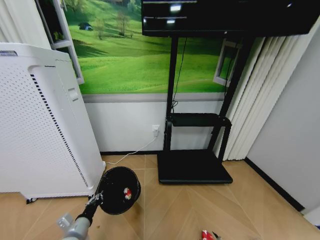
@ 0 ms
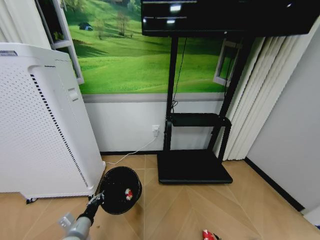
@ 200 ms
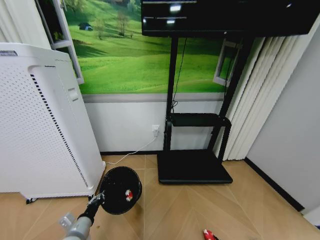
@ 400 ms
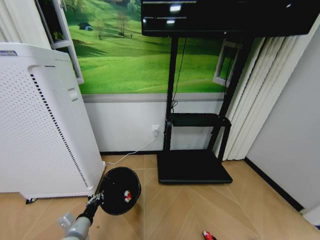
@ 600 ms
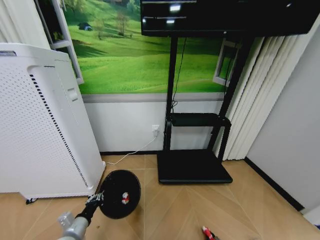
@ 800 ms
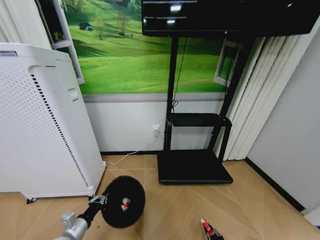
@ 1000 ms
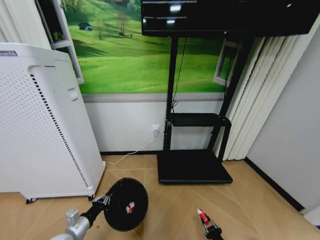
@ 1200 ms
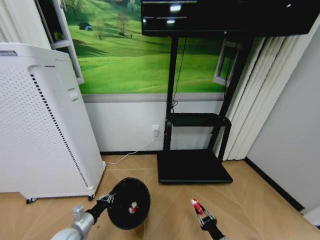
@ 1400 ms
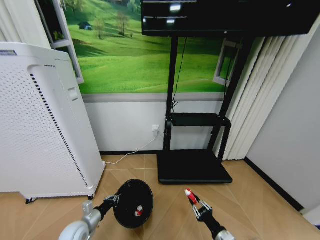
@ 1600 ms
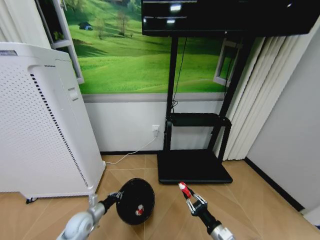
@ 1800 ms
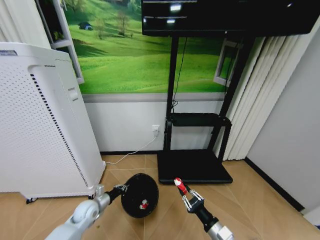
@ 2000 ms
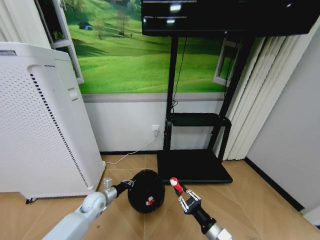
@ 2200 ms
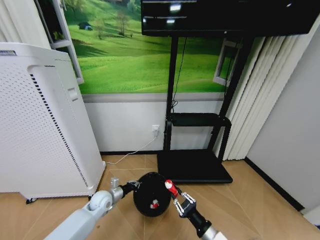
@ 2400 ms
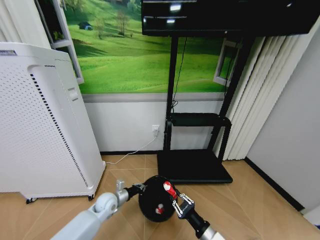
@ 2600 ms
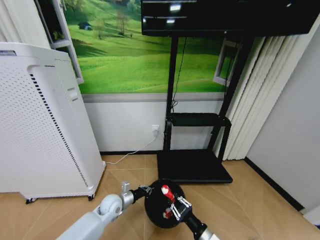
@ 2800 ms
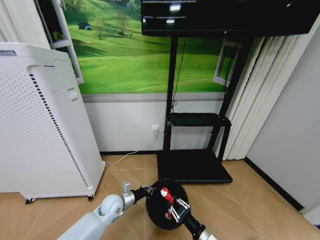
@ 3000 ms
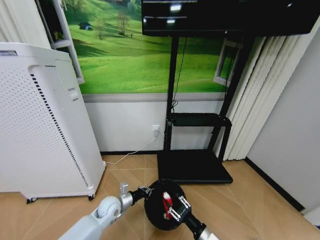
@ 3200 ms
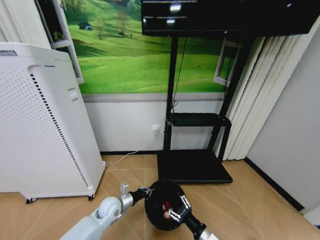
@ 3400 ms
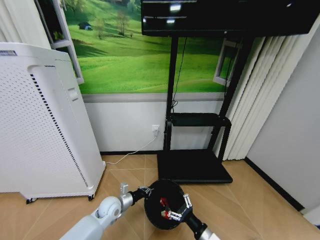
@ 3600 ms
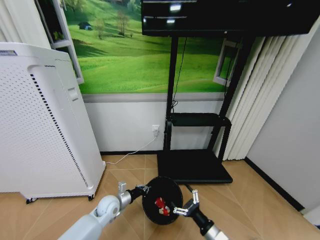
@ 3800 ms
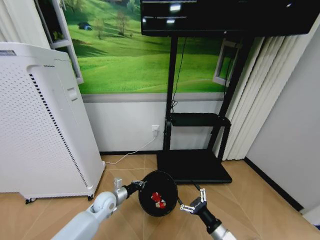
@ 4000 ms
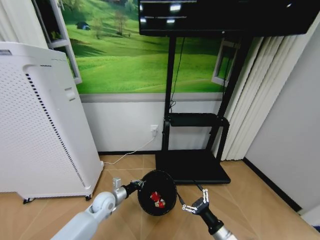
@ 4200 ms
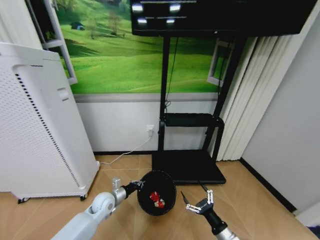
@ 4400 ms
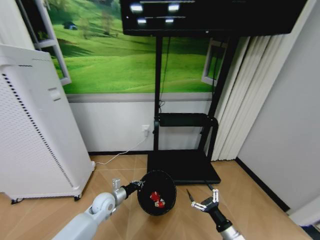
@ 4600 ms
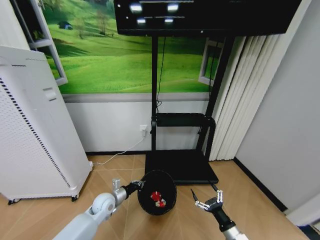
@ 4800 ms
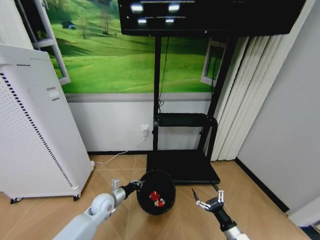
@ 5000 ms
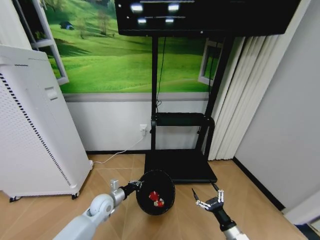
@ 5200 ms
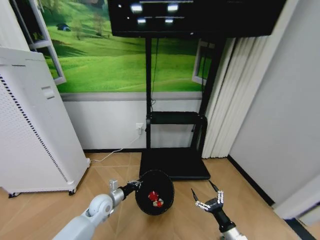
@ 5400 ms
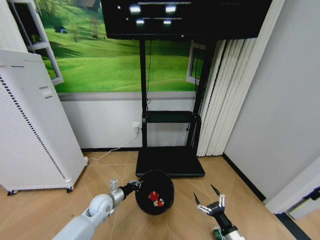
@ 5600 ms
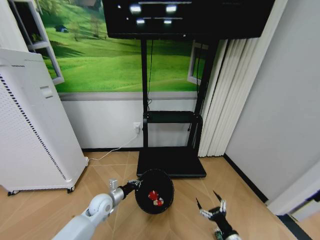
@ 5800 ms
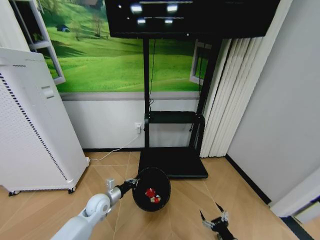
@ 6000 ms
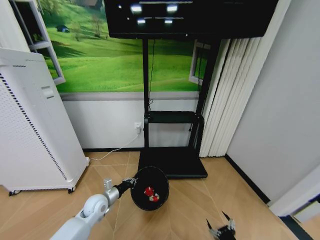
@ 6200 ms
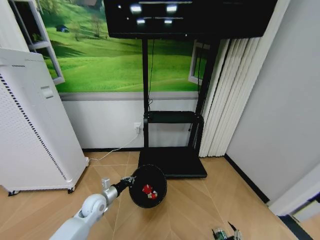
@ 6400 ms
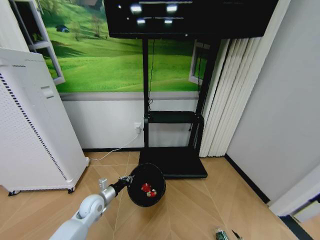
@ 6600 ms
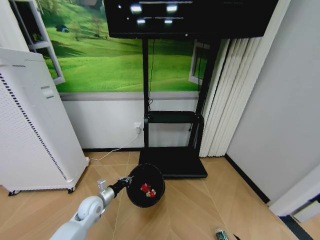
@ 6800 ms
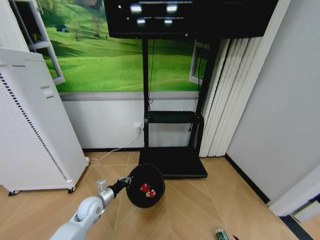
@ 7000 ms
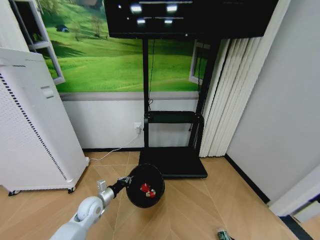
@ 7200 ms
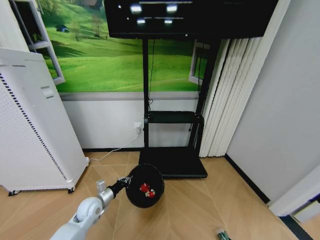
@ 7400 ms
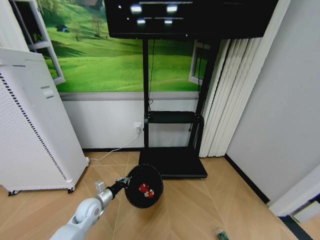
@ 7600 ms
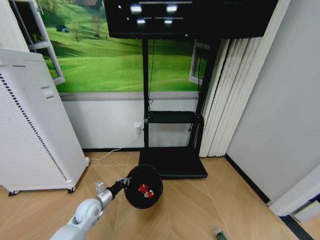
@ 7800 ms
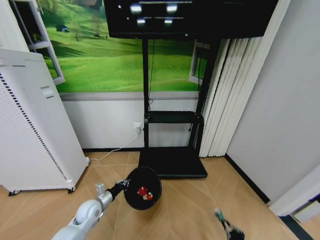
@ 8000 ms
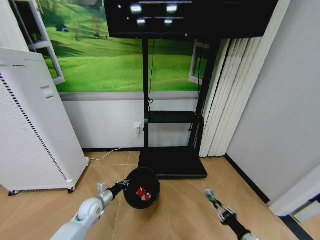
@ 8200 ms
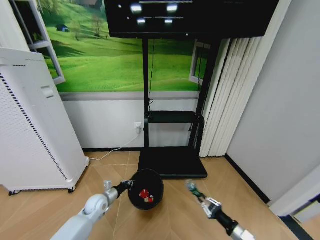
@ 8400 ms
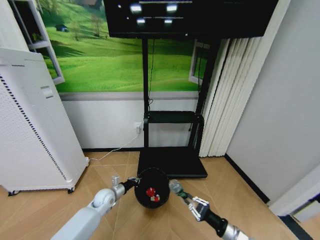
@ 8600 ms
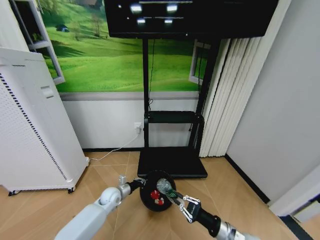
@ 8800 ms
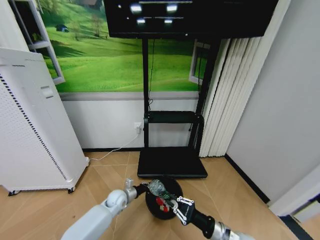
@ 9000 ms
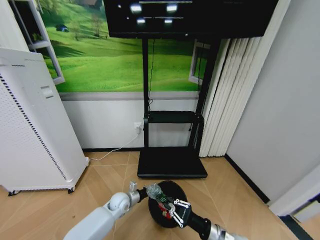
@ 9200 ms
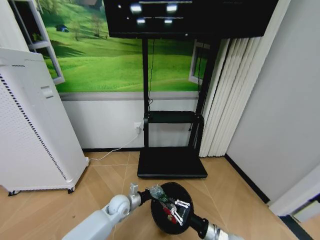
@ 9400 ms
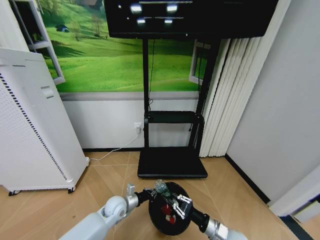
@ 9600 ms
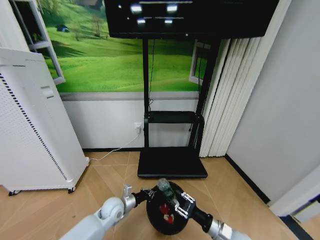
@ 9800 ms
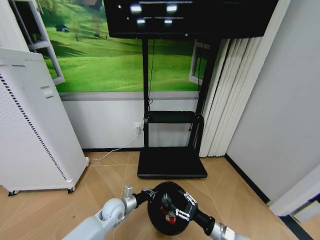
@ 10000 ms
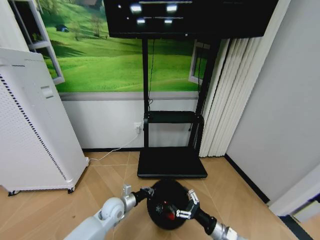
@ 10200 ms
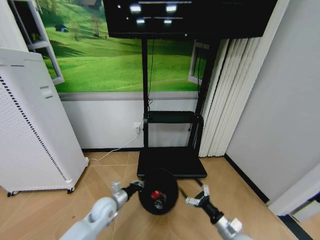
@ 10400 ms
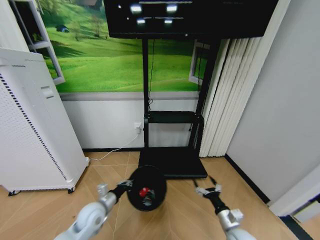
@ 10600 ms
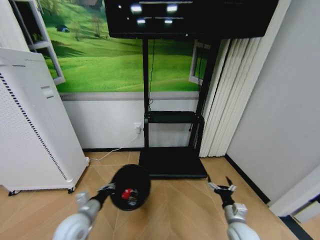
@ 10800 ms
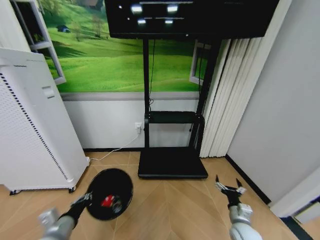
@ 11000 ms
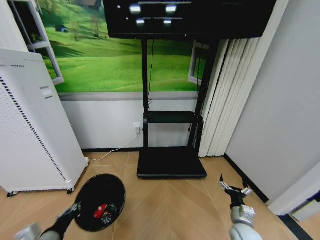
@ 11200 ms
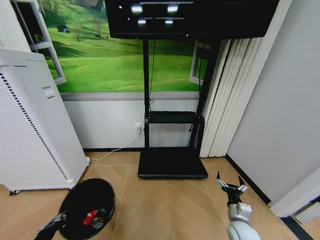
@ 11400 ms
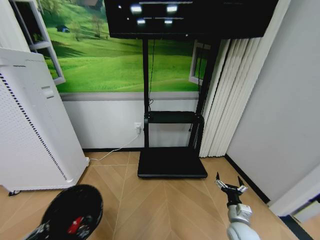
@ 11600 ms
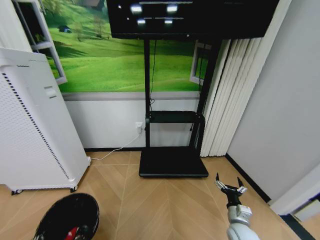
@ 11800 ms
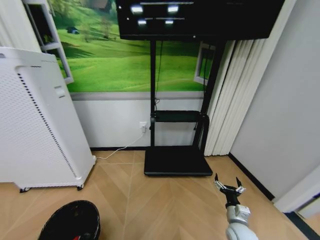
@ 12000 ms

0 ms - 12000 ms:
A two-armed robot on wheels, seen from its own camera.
Task of the whole recording: Pick up the trash bin and place the garbage on the floor into it.
0 ms - 1600 ms: The right gripper heads upward, covering some 15 cm, and closes its fingers; the left gripper heads forward, covering about 5 cm.
1600 ms - 3000 ms: The right gripper travels to the left by roughly 5 cm; the left gripper heads to the right and forward, covering some 15 cm.
3000 ms - 4400 ms: The right gripper moves to the right, approximately 5 cm, and opens up.
4400 ms - 6000 ms: The right gripper travels downward by some 5 cm.
6000 ms - 7600 ms: The right gripper shifts some 15 cm downward and to the right, and closes.
7600 ms - 9000 ms: The right gripper moves upward, to the left and forward, about 30 cm, while the left gripper moves to the right and forward, roughly 10 cm.
9000 ms - 10400 ms: The right gripper travels downward by about 5 cm, and opens up, while the left gripper shifts about 10 cm backward and upward.
10400 ms - 12000 ms: The right gripper ends up roughly 5 cm from where it was. The left gripper shifts roughly 35 cm backward and to the left.

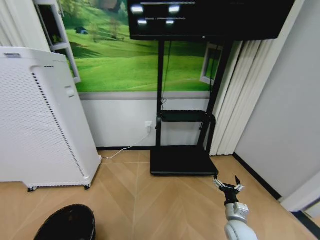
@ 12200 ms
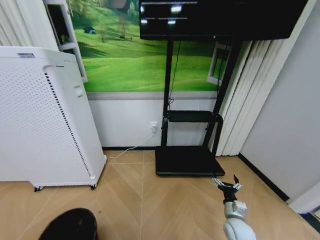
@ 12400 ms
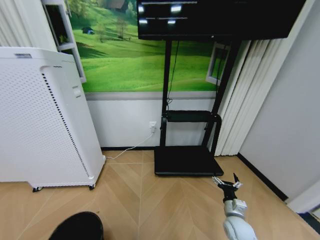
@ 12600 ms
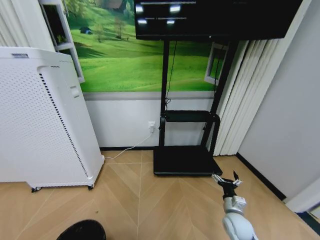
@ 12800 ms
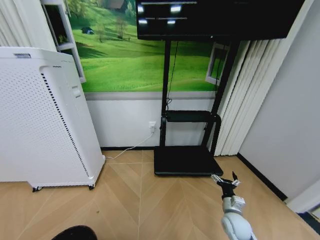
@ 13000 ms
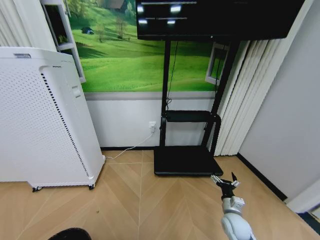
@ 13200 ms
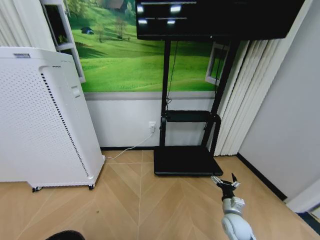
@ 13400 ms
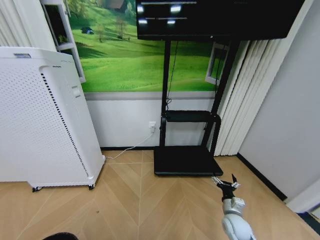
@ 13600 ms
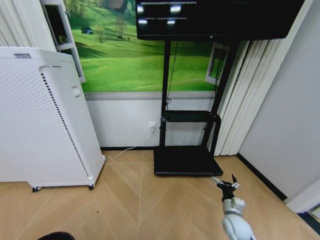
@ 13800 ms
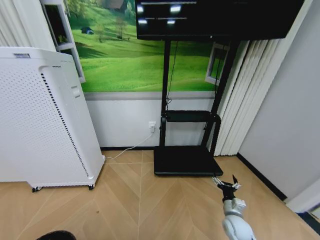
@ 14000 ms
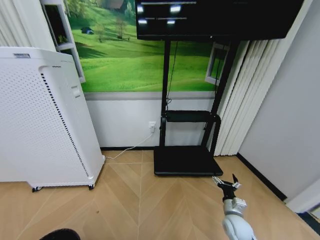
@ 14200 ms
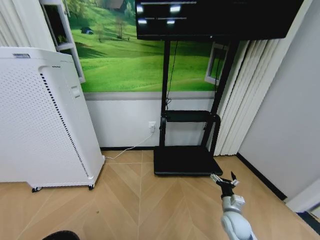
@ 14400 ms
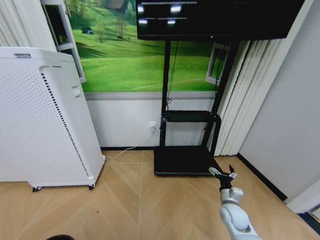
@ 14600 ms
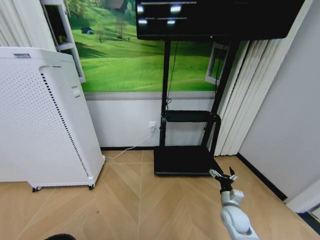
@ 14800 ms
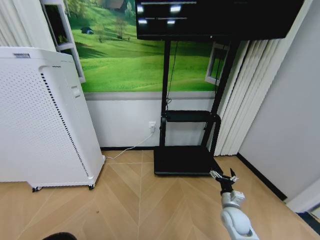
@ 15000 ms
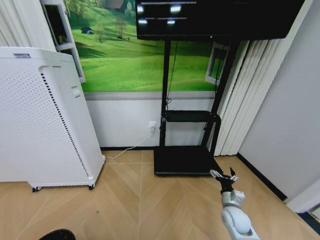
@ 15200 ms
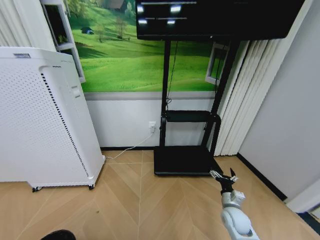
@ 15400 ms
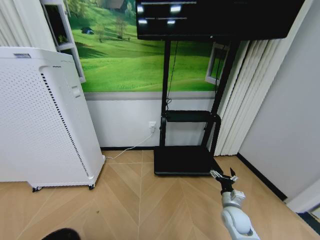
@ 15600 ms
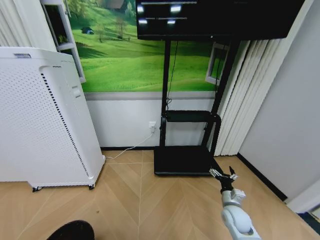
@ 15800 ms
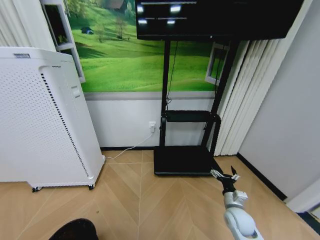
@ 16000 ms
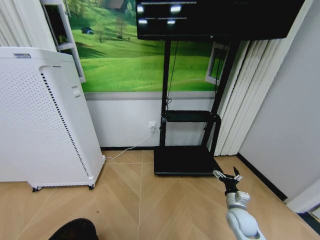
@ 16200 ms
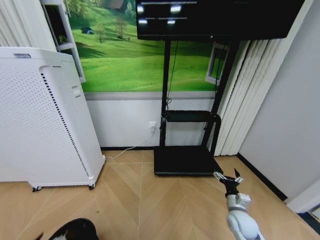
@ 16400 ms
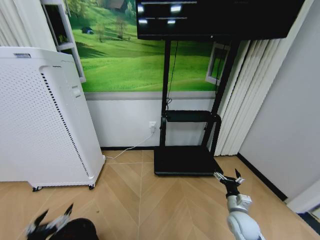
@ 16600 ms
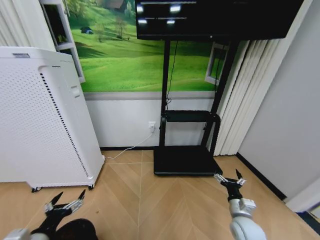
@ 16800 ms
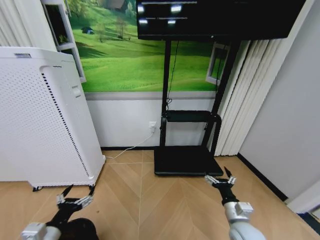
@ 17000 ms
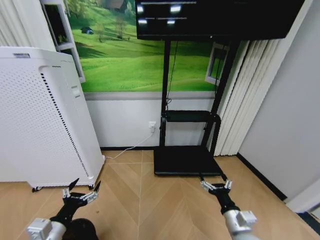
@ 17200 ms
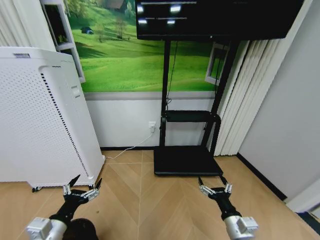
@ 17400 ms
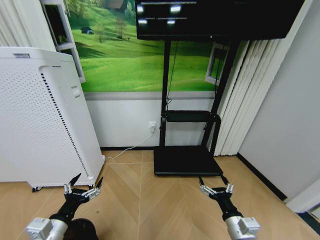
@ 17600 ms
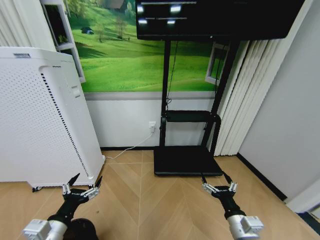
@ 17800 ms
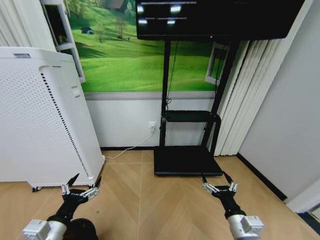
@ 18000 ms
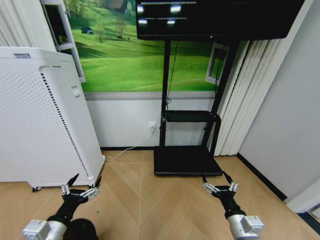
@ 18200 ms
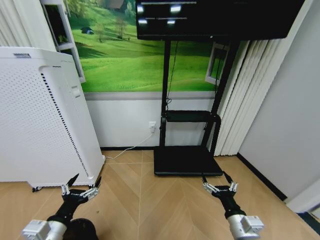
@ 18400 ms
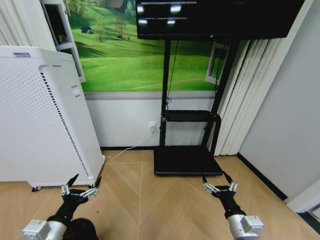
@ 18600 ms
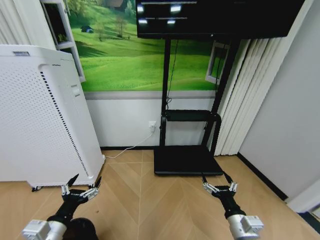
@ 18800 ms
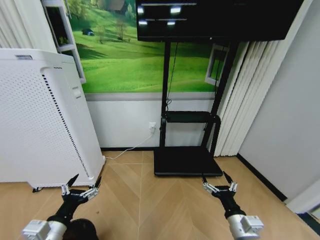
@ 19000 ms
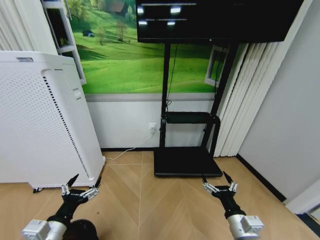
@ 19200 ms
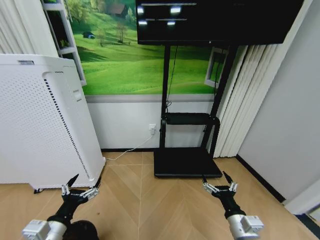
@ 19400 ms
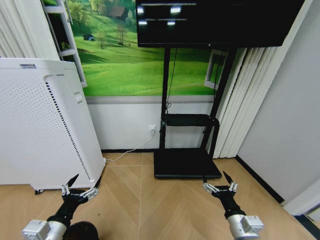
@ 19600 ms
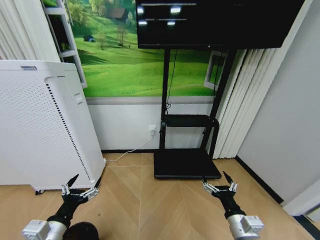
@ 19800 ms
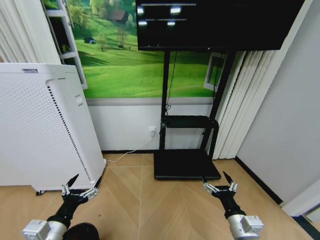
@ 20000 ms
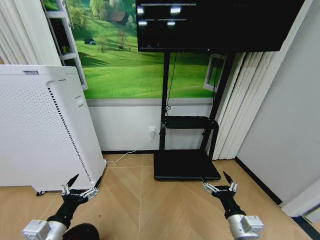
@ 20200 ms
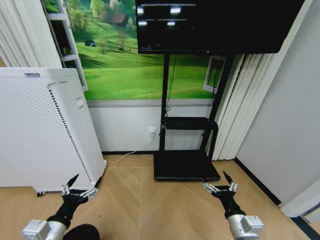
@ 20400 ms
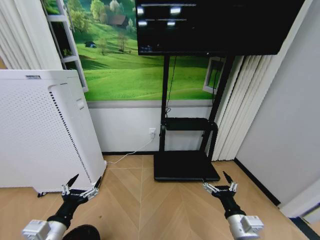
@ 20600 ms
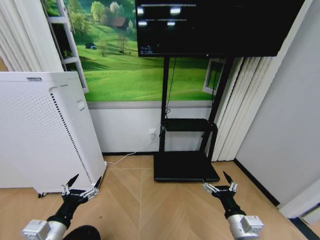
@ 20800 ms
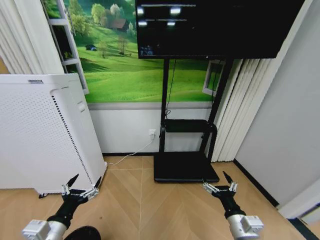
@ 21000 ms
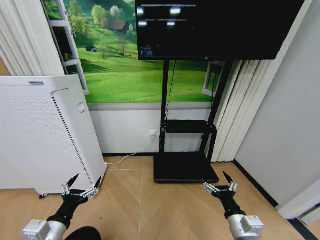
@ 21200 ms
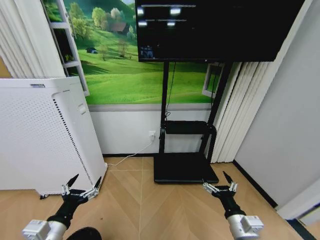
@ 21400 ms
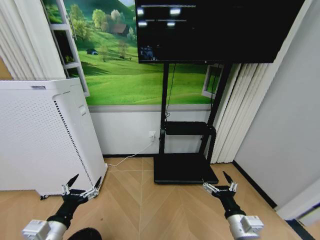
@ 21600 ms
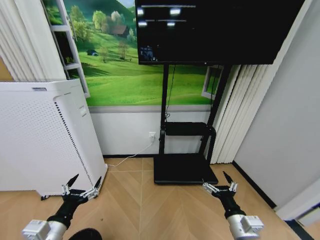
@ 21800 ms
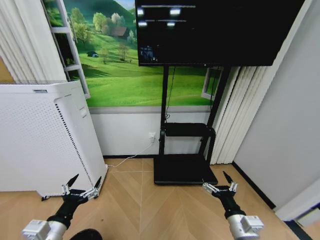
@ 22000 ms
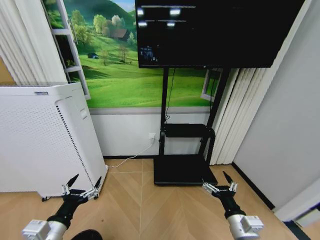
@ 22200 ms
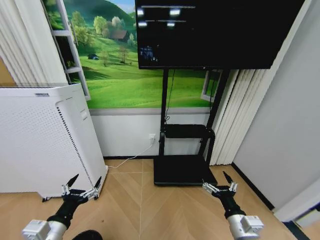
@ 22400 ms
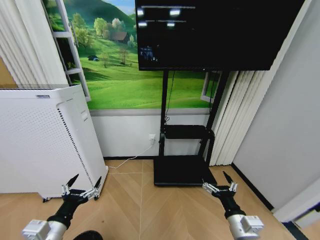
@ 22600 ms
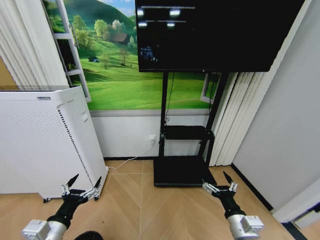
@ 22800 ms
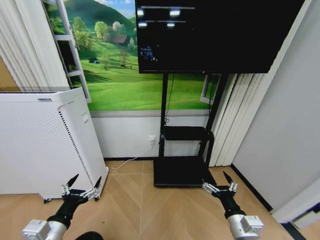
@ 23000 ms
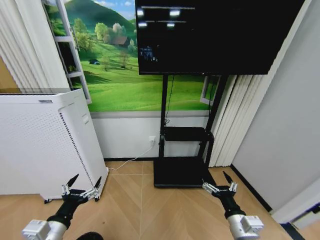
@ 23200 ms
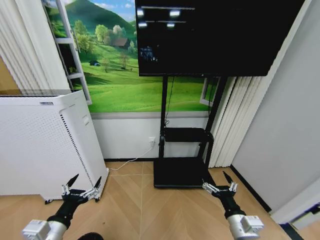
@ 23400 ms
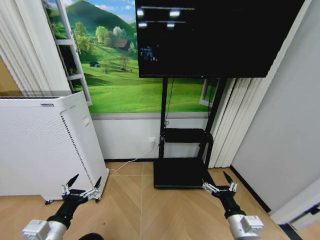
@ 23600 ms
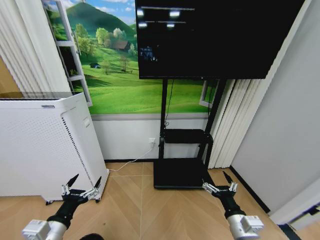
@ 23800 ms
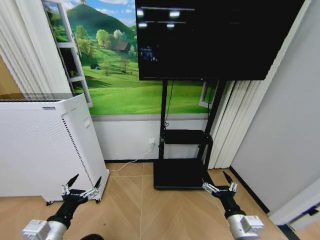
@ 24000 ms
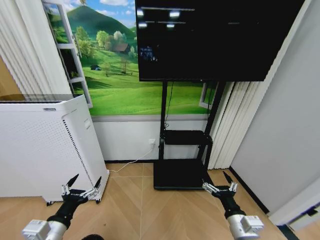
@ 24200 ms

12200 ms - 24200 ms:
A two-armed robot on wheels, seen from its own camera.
Task of the whole recording: Pick up the trash bin and place the garbage on the floor into it.
12200 ms - 13800 ms: The left gripper goes roughly 5 cm backward.
13800 ms - 15200 ms: The grippers move only a little.
15200 ms - 16600 ms: The left gripper heads forward and upward, covering approximately 15 cm, and opens its fingers.
16600 ms - 18200 ms: The right gripper moves backward, upward and to the left, some 15 cm. The left gripper travels to the right and forward by about 10 cm.
18200 ms - 24200 ms: Neither gripper changes place.
